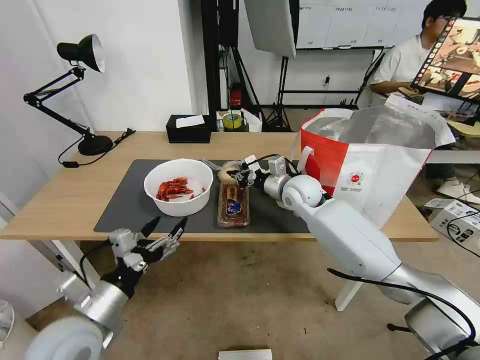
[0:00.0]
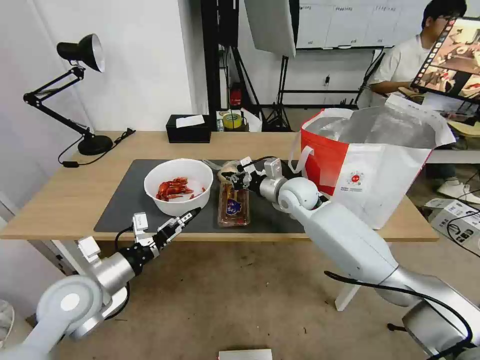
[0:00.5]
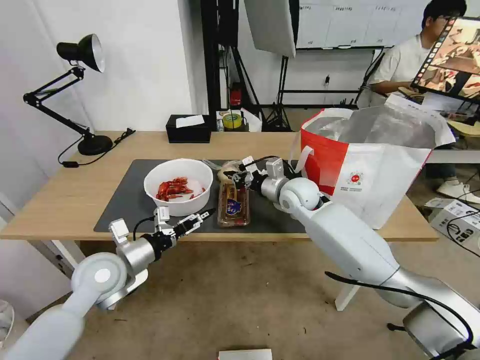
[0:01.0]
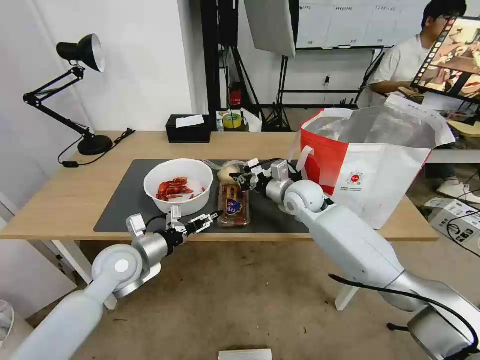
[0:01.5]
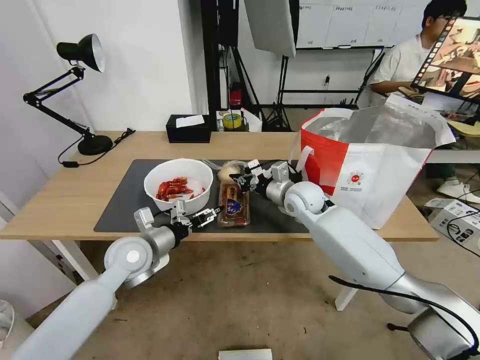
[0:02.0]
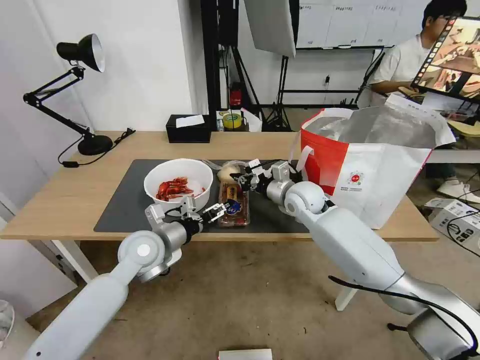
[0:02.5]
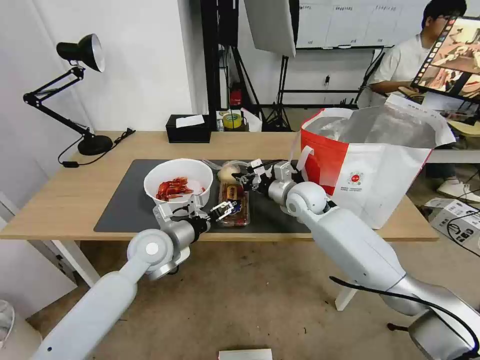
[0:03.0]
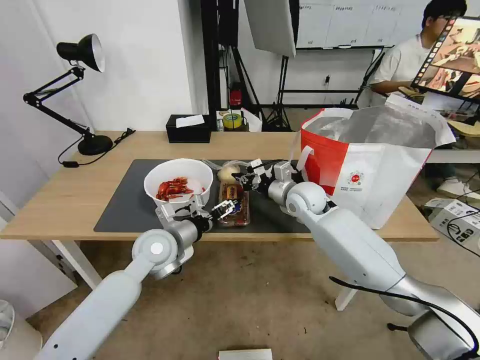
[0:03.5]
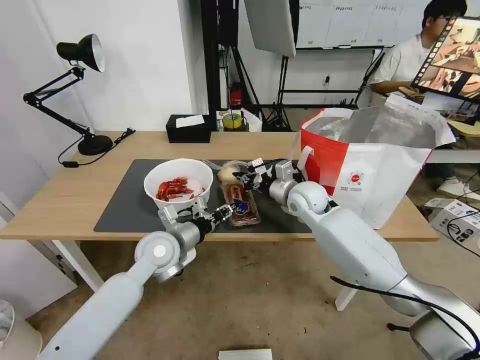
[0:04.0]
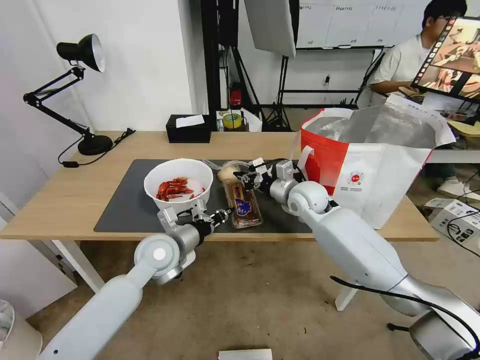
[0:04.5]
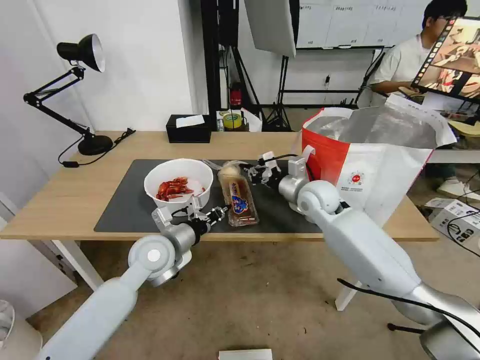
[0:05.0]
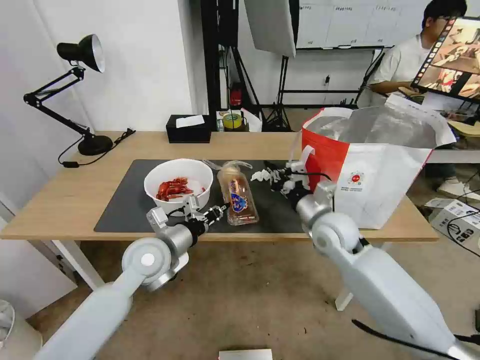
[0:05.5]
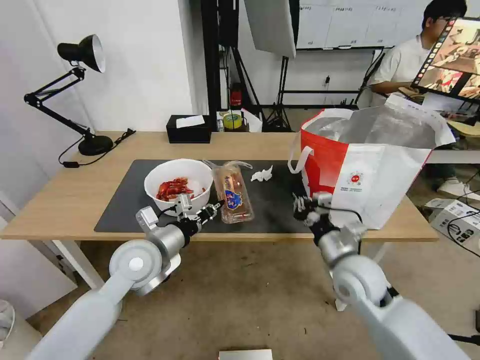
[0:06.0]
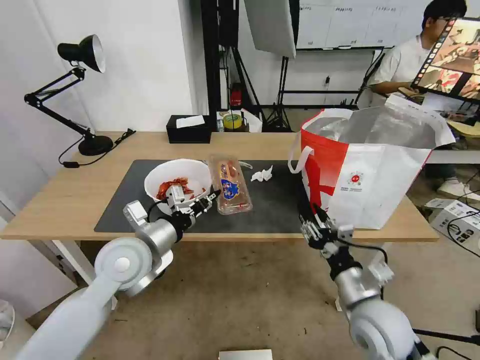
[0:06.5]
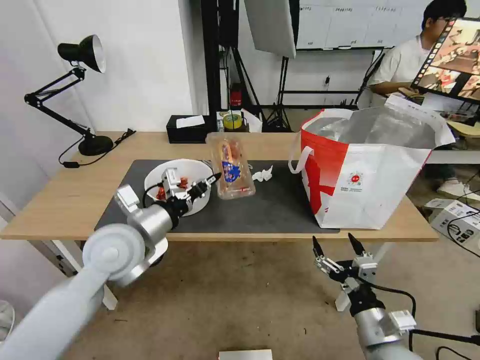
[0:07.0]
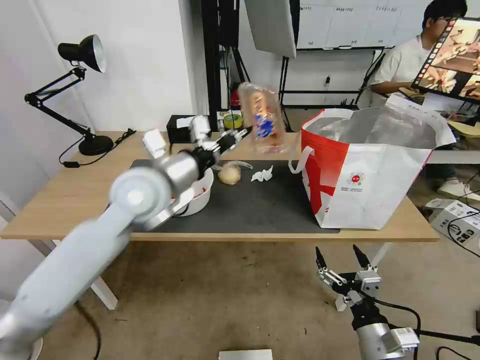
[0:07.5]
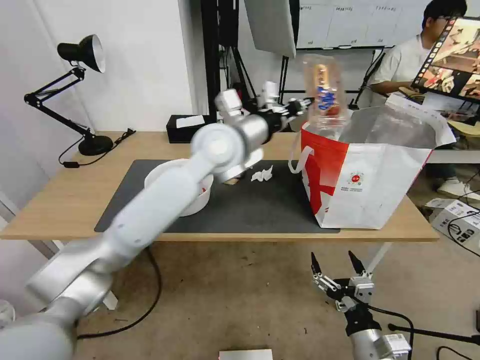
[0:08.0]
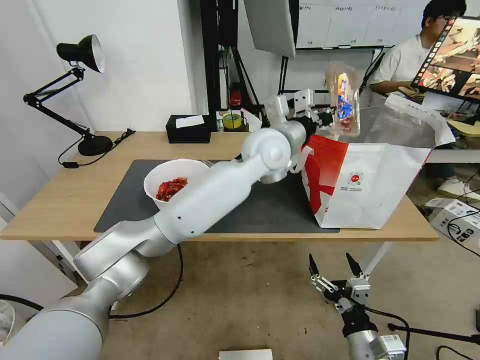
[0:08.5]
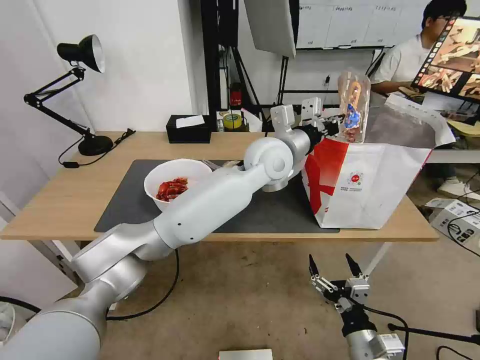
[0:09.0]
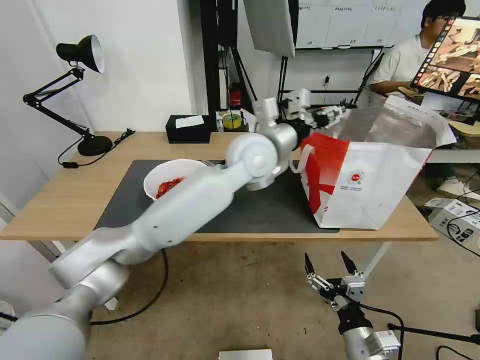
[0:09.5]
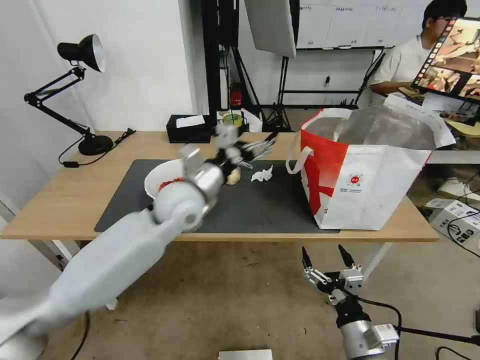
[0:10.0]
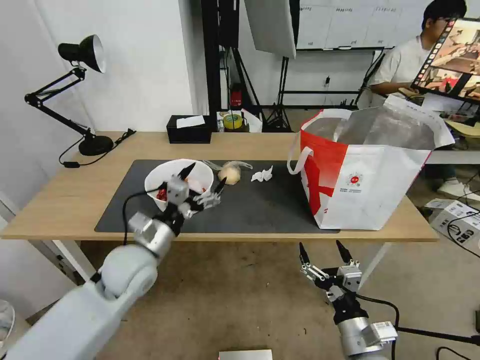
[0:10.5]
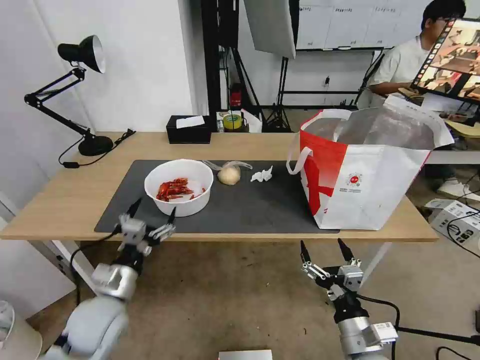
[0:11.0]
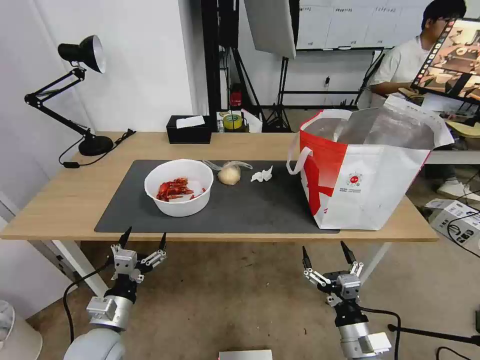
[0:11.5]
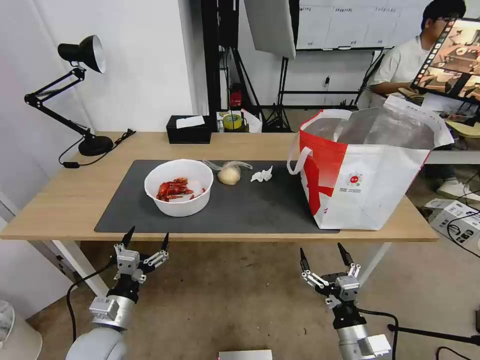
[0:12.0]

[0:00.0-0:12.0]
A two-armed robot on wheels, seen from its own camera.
Task of the whole recording: Pick up the trash from the table and place it into the takeout bag.
0:00.0 to 0:02.0: The left gripper is displaced forward by about 15 cm.
0:02.0 to 0:04.0: The left gripper is displaced to the right by about 5 cm, and closes.
0:04.0 to 0:06.0: The right gripper moves backward, some 20 cm, while the left gripper shifts by approximately 5 cm, and closes its fingers.
0:06.0 to 0:08.0: The right gripper heads backward and downward, covering roughly 20 cm, and opens up; the left gripper moves upward, to the right and forward, roughly 30 cm.
0:08.0 to 0:10.0: The left gripper moves downward and to the left, some 15 cm, and opens up.
0:10.0 to 0:12.0: The left gripper moves backward, downward and to the left, some 35 cm.

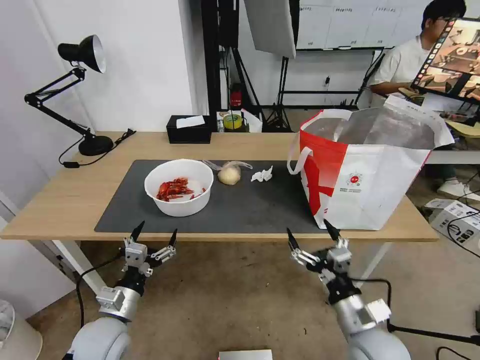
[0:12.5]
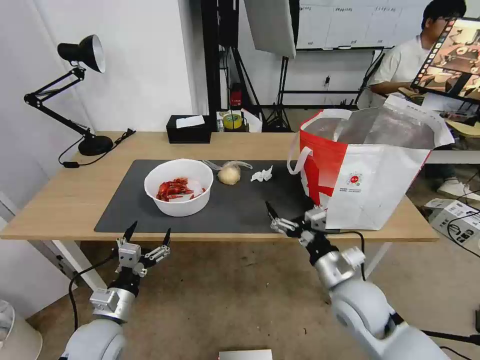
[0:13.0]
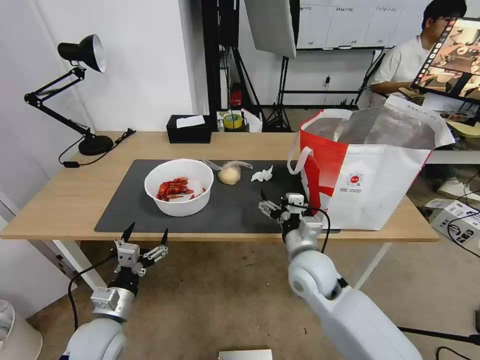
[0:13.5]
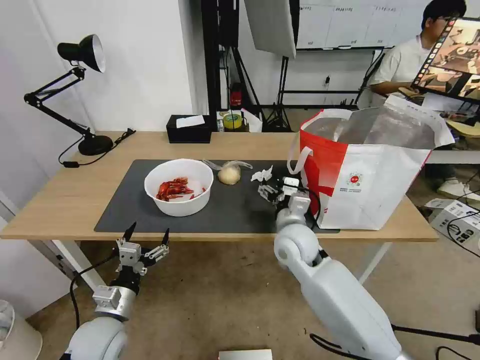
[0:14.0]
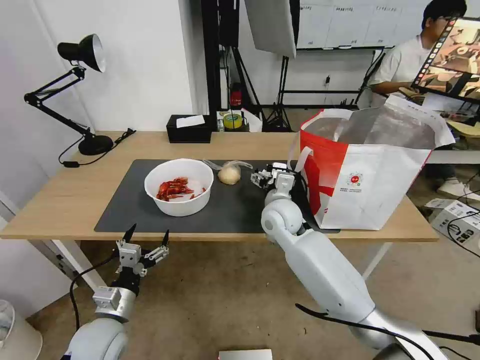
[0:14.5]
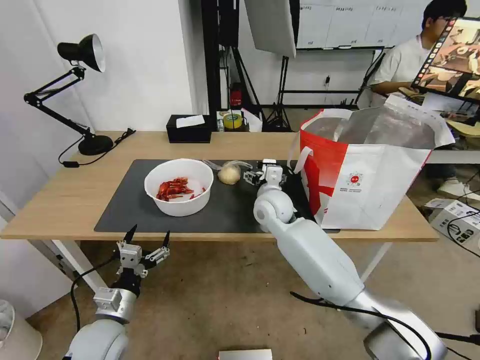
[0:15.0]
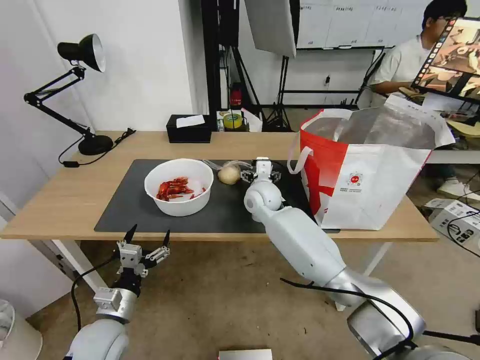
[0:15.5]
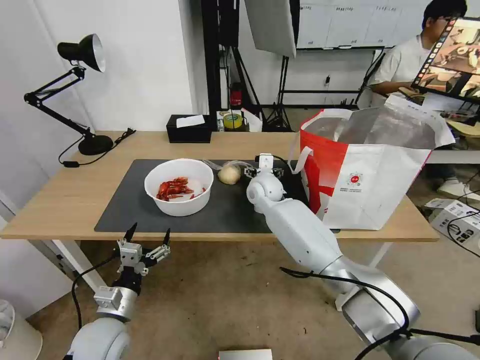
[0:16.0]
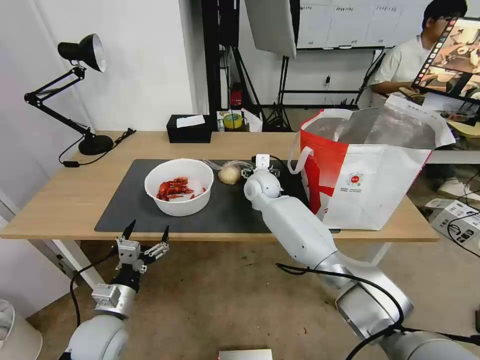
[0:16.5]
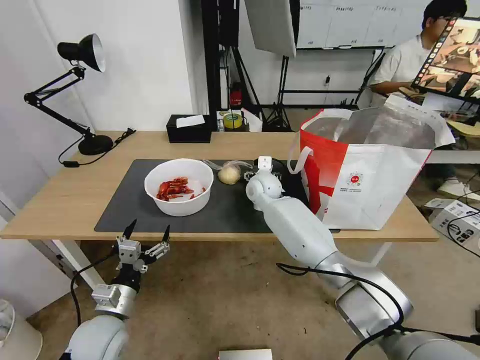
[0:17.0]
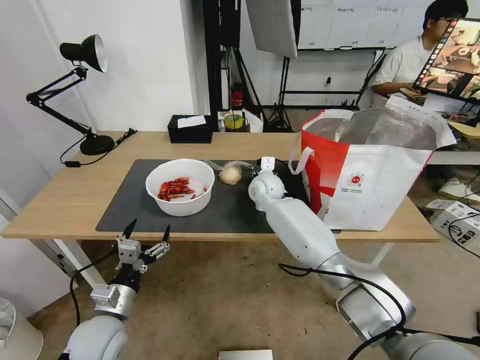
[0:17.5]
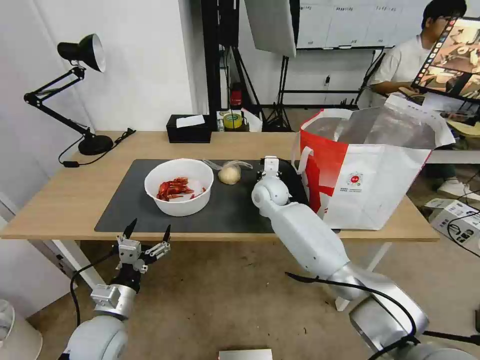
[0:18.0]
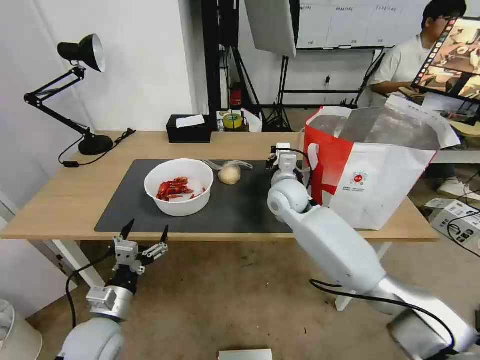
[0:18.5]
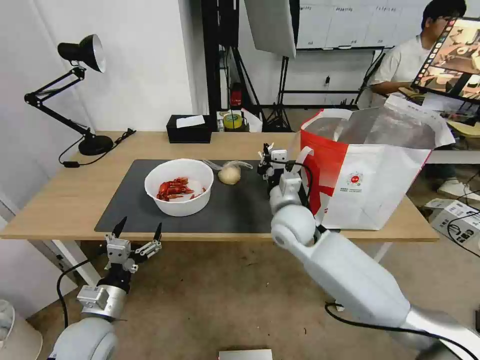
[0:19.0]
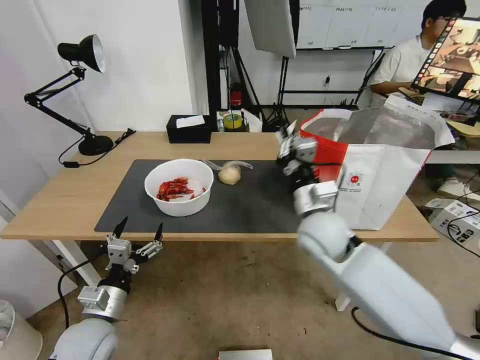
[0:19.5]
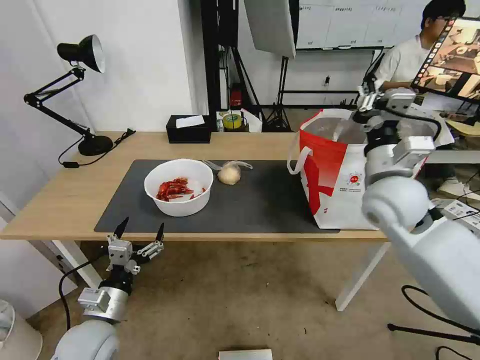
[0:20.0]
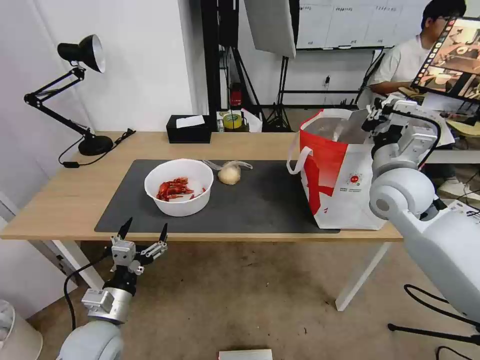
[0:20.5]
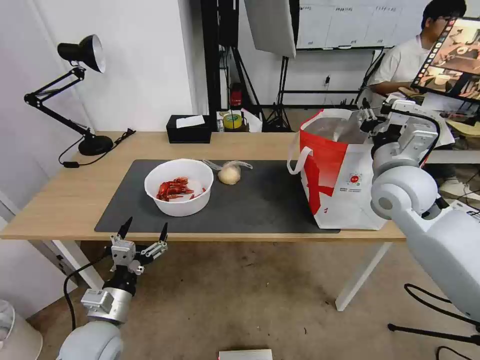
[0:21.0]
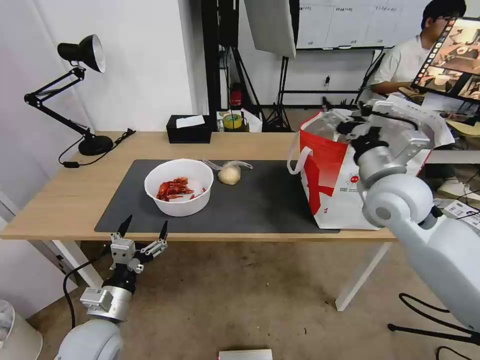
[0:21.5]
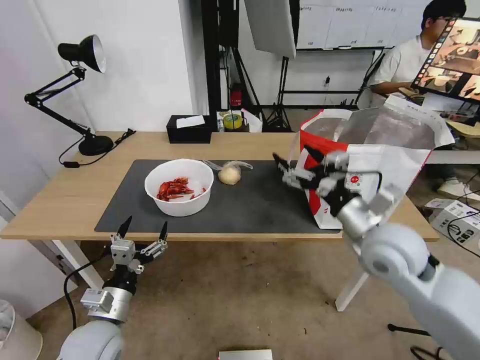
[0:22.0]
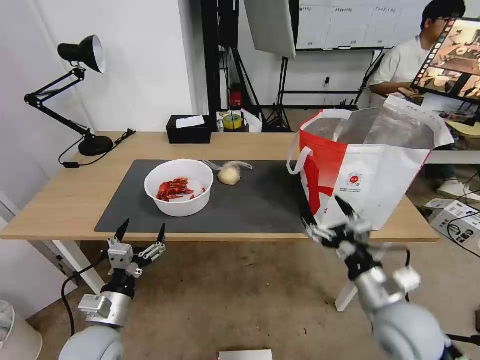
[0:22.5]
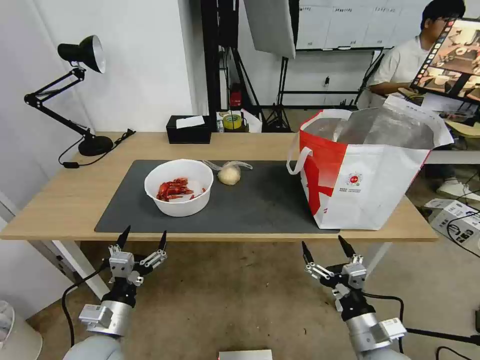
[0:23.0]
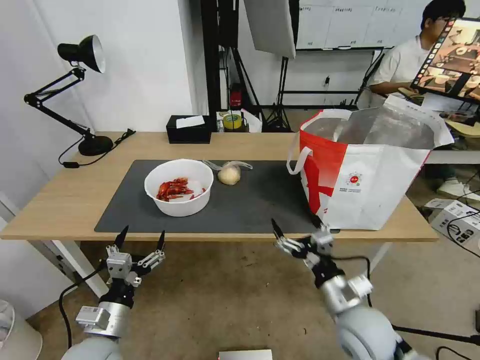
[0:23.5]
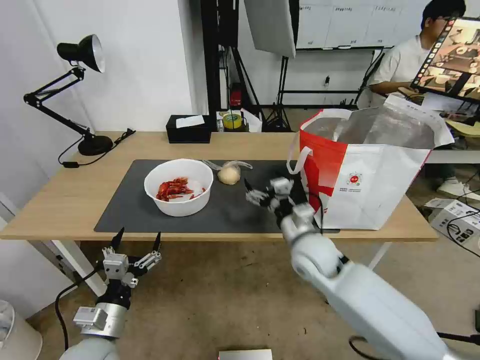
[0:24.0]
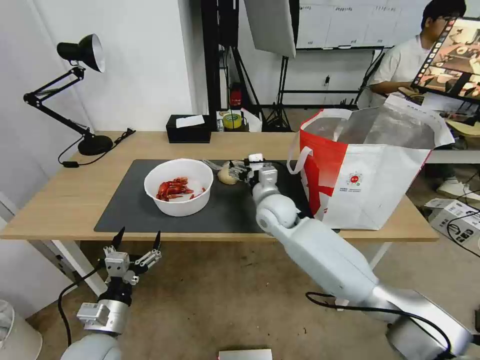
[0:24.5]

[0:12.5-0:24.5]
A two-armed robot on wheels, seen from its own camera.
Task of the whole recording: Pick up the trash from the table and place it into the takeout bag.
0:12.5 to 0:14.5: The right gripper travels forward and to the left by approximately 30 cm.
0:14.5 to 0:16.5: The right gripper heads forward, covering about 10 cm.
0:16.5 to 0:18.5: The right gripper heads backward and to the right, covering about 10 cm, and closes up.
0:18.5 to 0:20.5: The right gripper goes approximately 25 cm to the right, upward and backward.
0:20.5 to 0:22.5: The right gripper moves backward and downward, some 25 cm, and opens up.
0:22.5 to 0:24.5: The right gripper moves forward and to the left, roughly 35 cm.

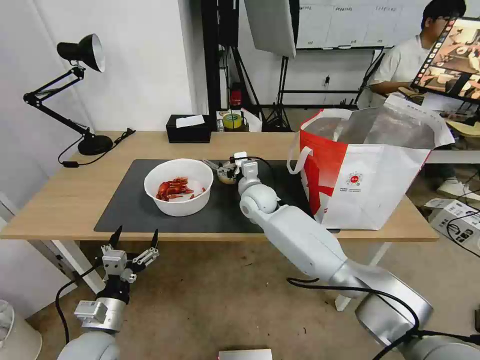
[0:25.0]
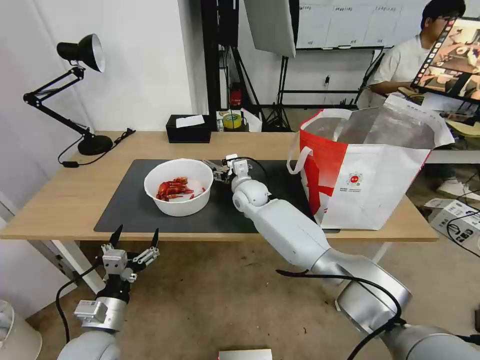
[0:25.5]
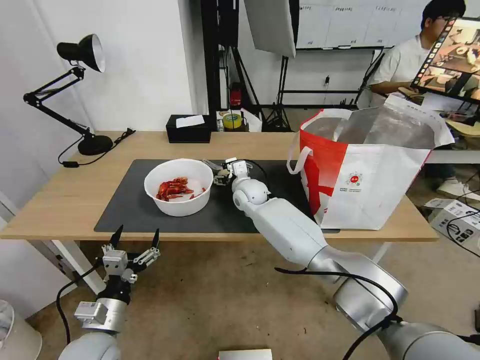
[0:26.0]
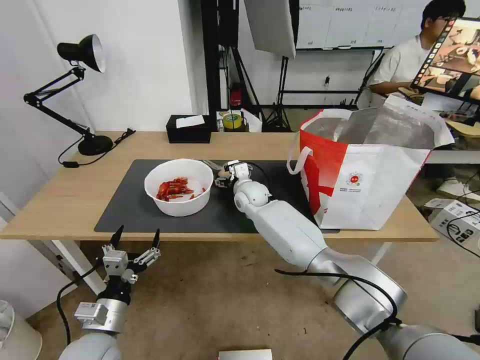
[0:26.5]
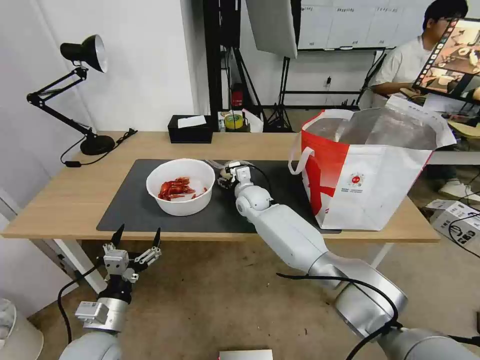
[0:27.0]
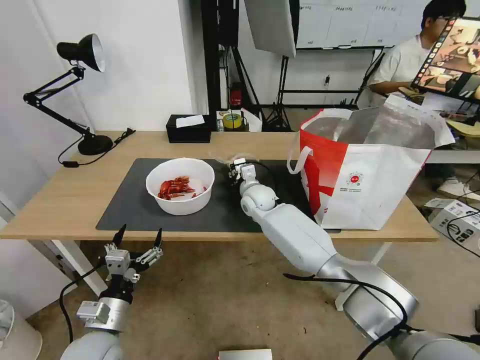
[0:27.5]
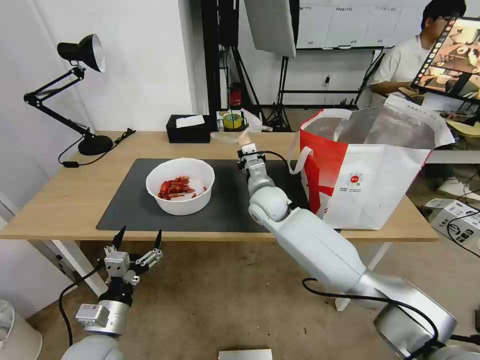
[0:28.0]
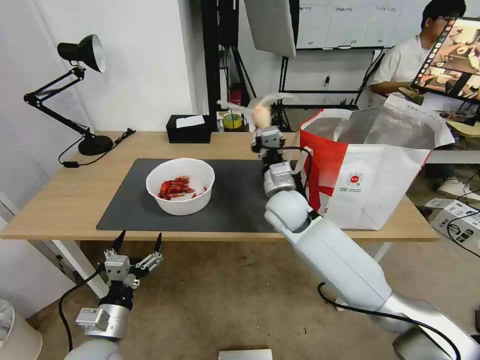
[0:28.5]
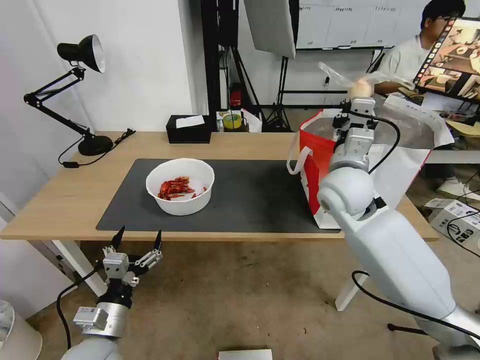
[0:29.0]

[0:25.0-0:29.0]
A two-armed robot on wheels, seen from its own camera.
Task of the whole recording: Pick up the trash from the table and place it into the takeout bag.
0:25.0 to 0:27.0: The right gripper shifts by some 5 cm.
0:27.0 to 0:29.0: The right gripper shifts about 30 cm upward, to the right and backward, and closes.
